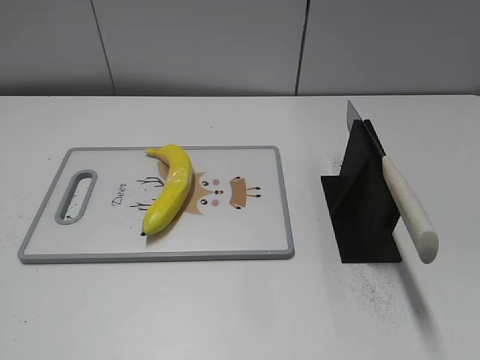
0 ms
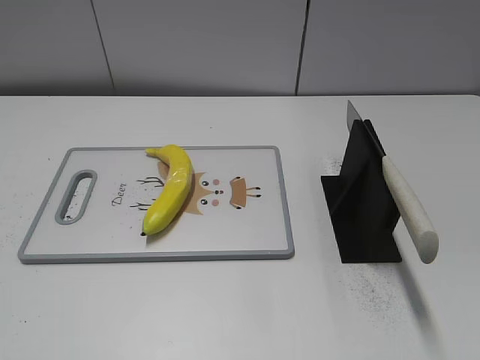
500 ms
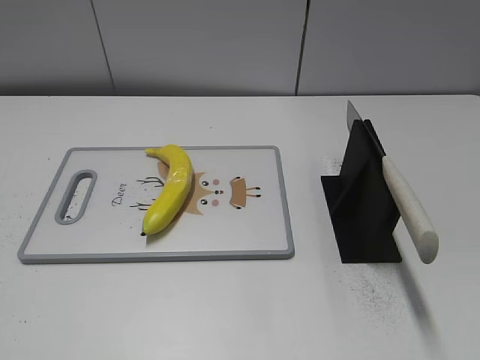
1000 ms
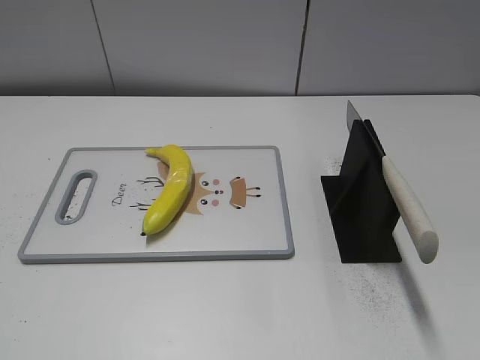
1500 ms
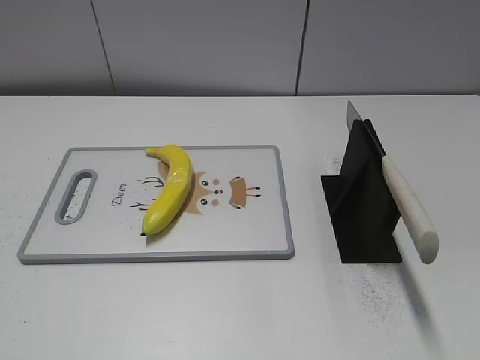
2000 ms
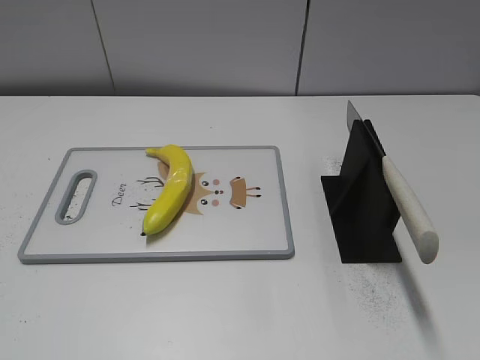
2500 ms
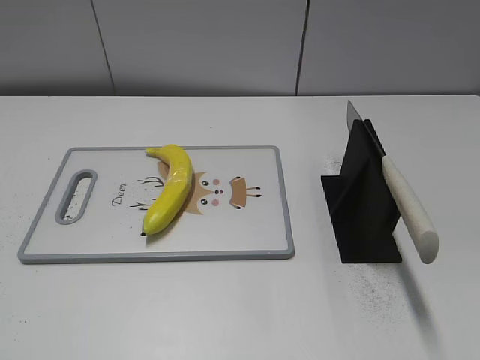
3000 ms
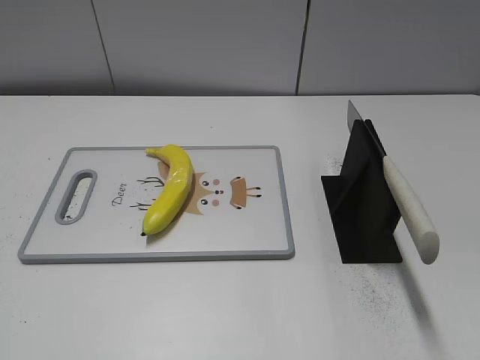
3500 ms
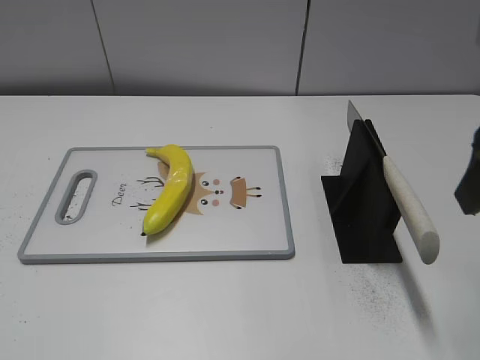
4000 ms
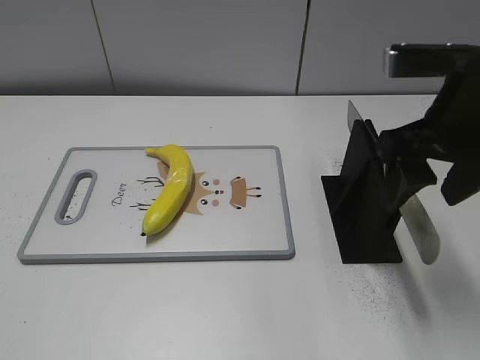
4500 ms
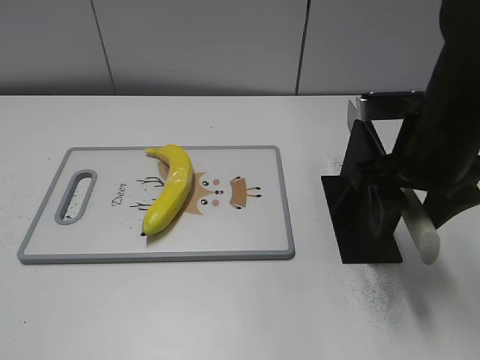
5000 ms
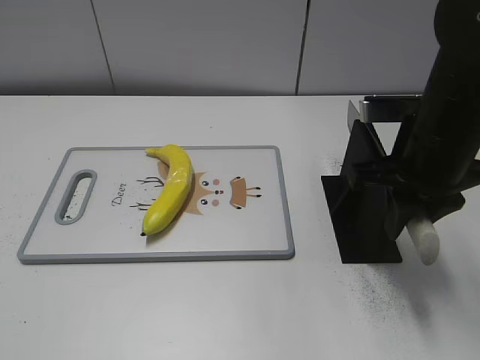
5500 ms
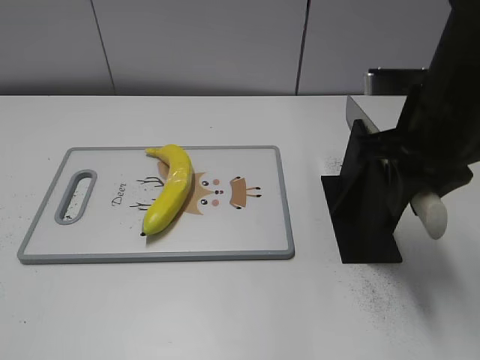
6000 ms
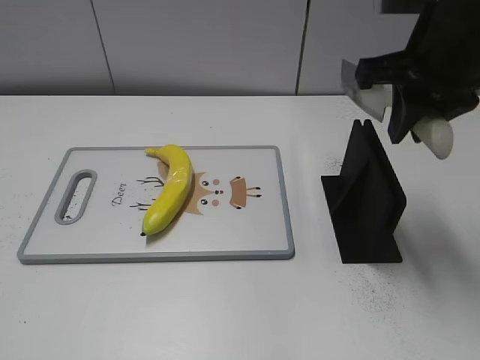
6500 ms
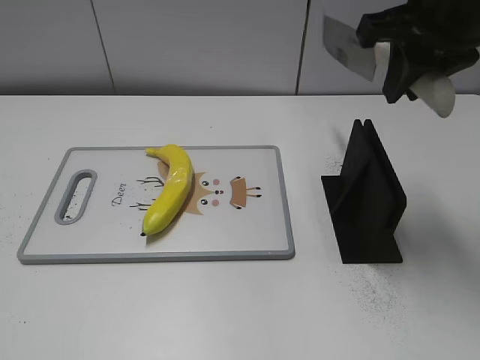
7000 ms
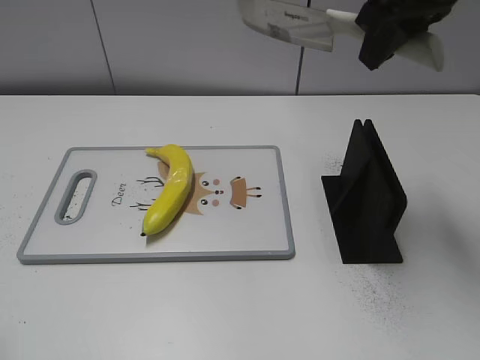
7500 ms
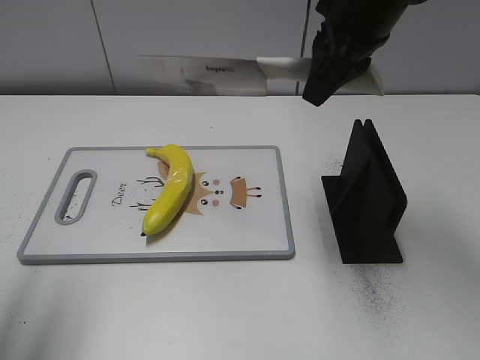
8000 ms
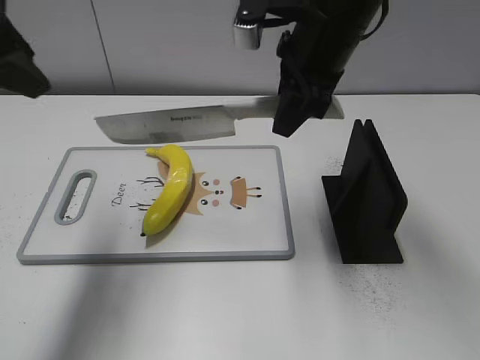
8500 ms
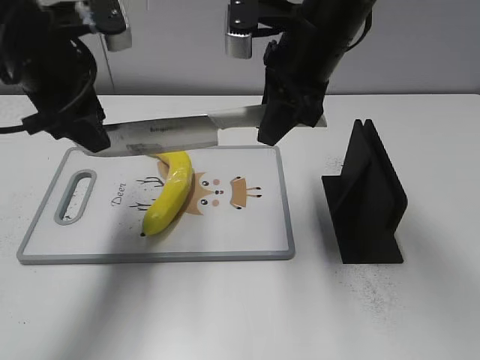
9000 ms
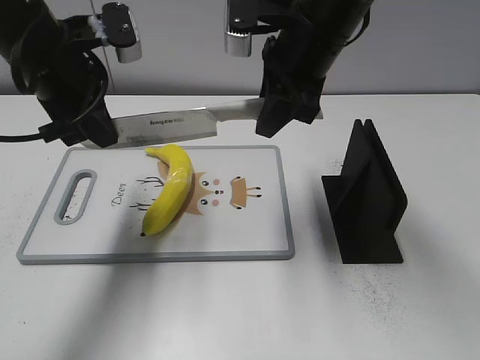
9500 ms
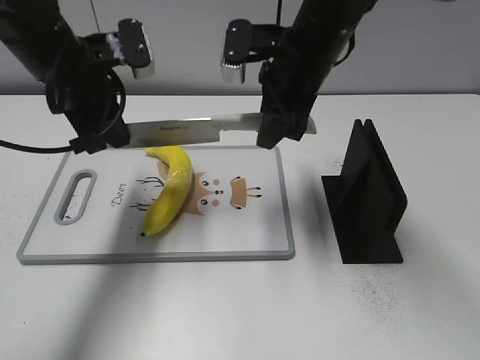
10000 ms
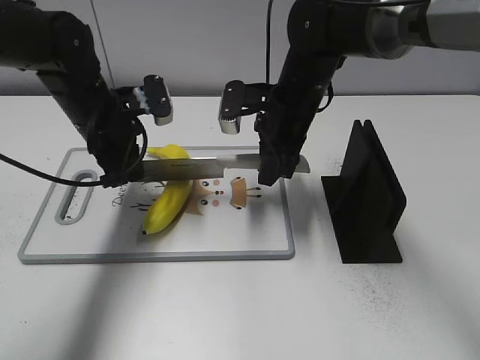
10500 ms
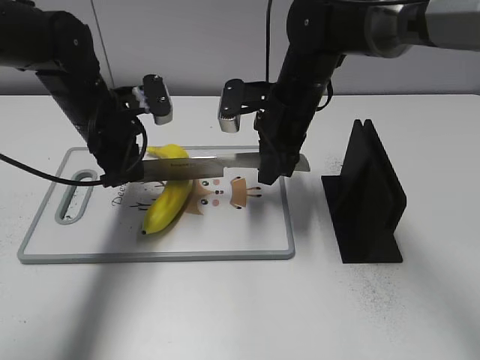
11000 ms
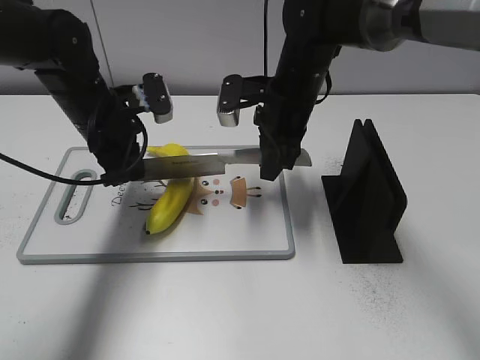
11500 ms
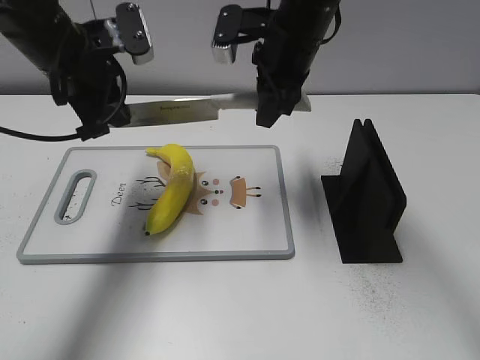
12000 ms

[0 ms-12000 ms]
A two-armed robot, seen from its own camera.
Task of the whole recording: cut plastic banana.
Step, 0 ms to 6500 ms: Grab the knife handle with your right hand.
Step, 7000 ms to 11500 ms: Lift the knife with your right hand.
2000 ms to 4000 ms: The right gripper shifts about 20 cm forward and to the left.
4000 ms to 6000 ms: The right gripper is displaced forward and downward by some 10 cm, and closes.
6000 ms to 8000 ms: The right gripper goes approximately 10 cm upward, forward and to the left. The left gripper heads forward and upward, covering about 20 cm.
8000 ms to 10000 ms: The left gripper is displaced forward, to the right and downward by roughly 25 cm, and closes up; the right gripper moves downward, roughly 10 cm.
10000 ms to 12000 ms: The right gripper moves about 10 cm downward and comes back, while the left gripper goes downward and returns, roughly 10 cm each way.

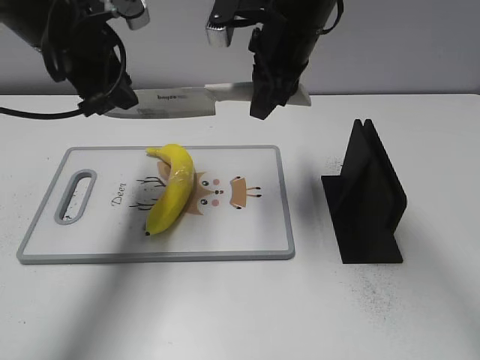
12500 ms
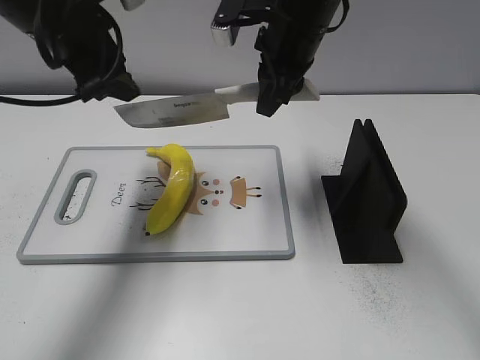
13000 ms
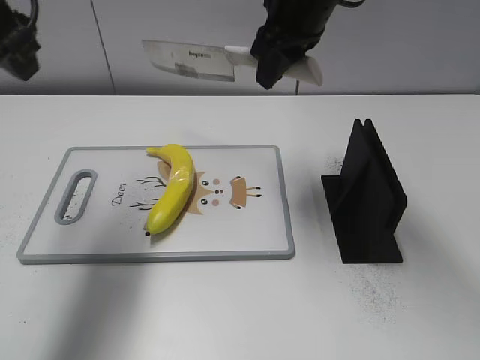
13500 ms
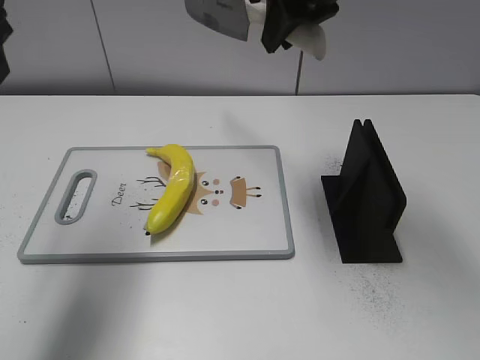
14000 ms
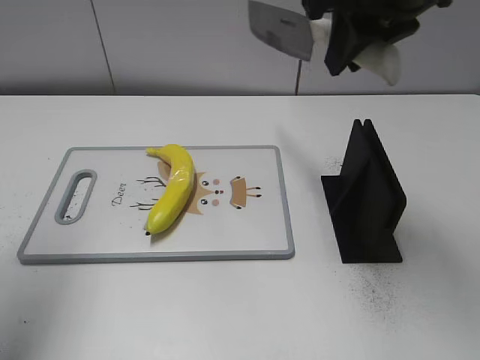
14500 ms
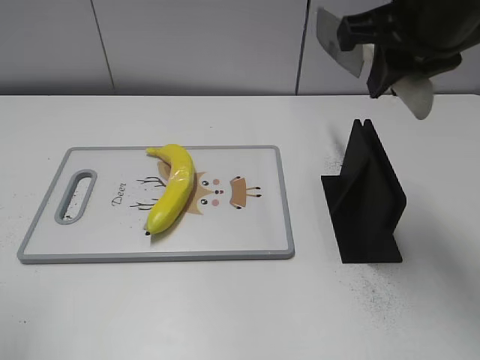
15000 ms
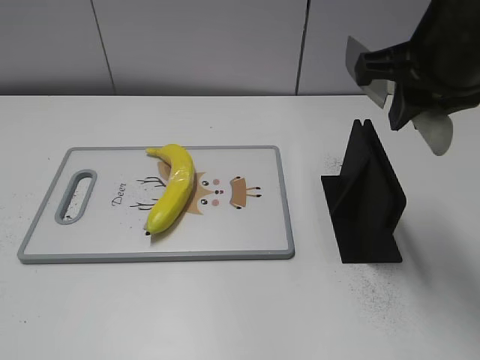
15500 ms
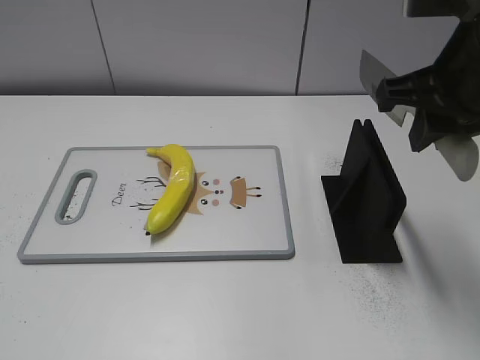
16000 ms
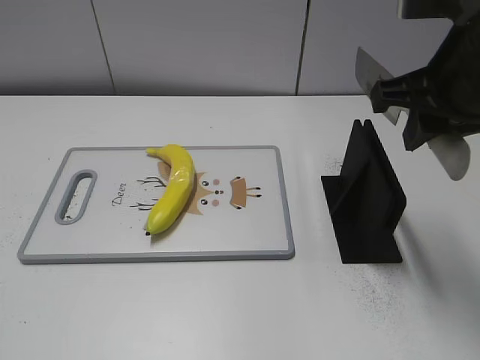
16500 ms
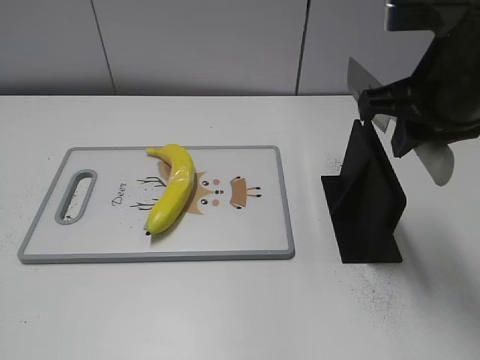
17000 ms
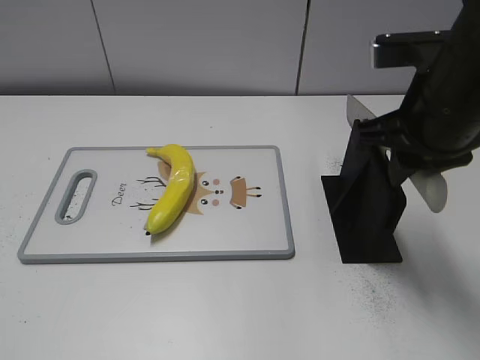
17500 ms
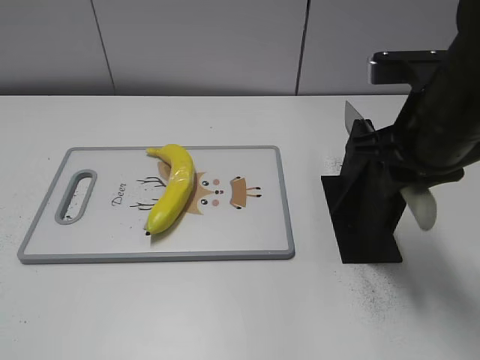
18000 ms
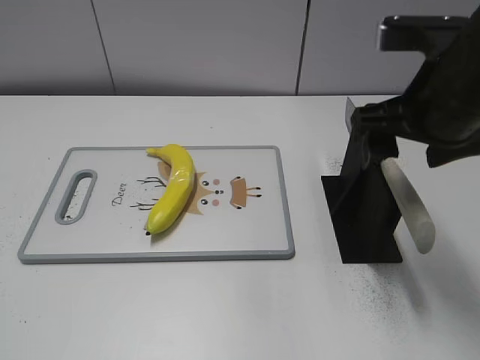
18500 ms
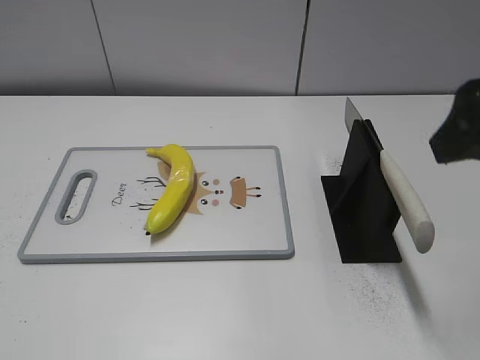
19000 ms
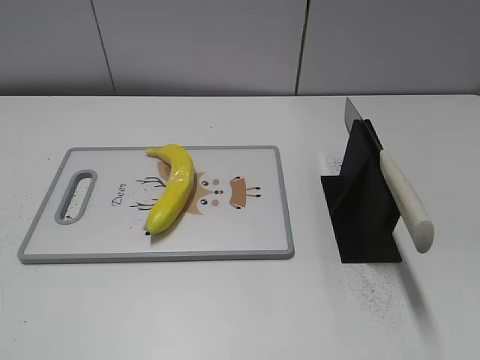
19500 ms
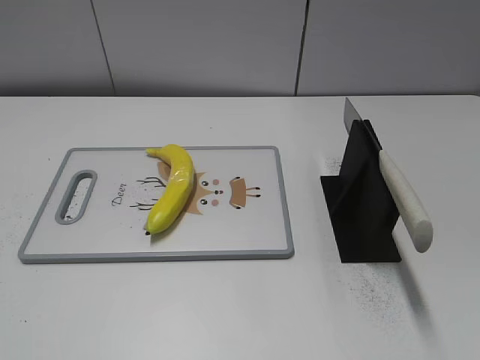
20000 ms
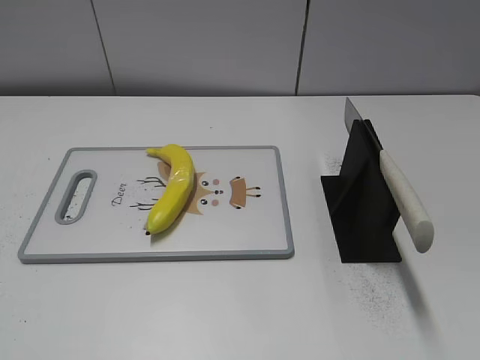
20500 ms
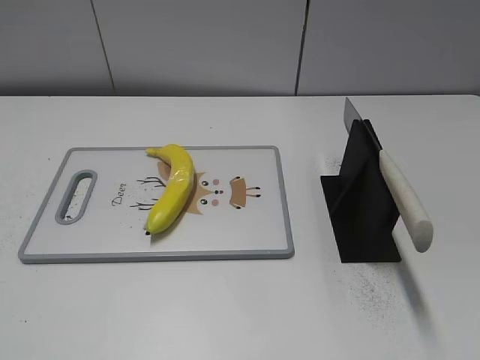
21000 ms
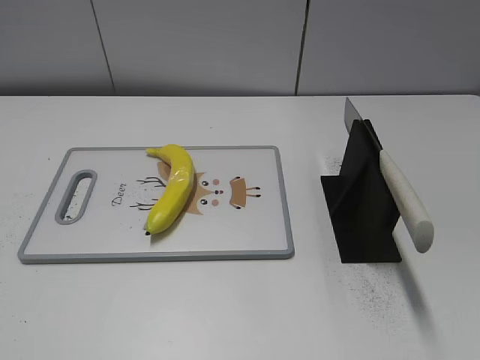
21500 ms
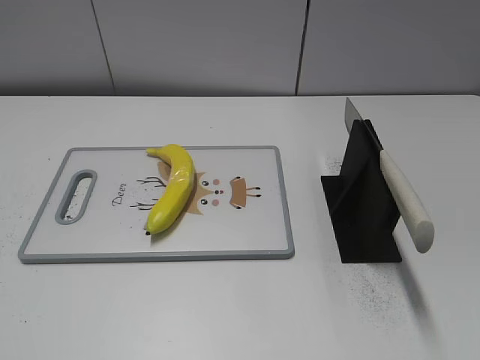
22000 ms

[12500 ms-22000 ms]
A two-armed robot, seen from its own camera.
Task of the whole recording: cut plastic banana.
Step, 13500 ms to 15500 ms: Lift the knife with your right hand.
Step, 16000 ms to 22000 ms: Place the knife on the storage rack with your right hand.
12500 ms to 14500 ms: The left gripper heads backward, to the left and upward, covering some 20 cm, and opens, while the right gripper travels upward, backward and to the right by approximately 15 cm.
14500 ms to 16500 ms: The right gripper is displaced backward, downward and to the right by about 10 cm. The left gripper is displaced backward and downward by about 25 cm.
16500 ms to 18000 ms: The right gripper travels downward by some 5 cm.
18000 ms to 20000 ms: The right gripper travels backward and to the right by approximately 25 cm, and opens up.

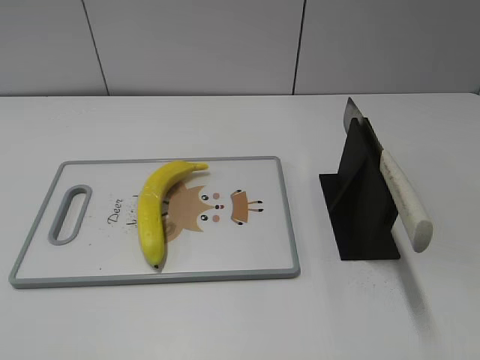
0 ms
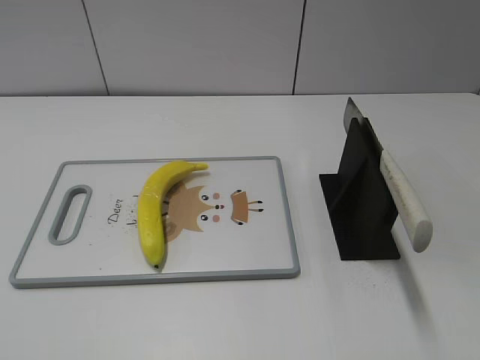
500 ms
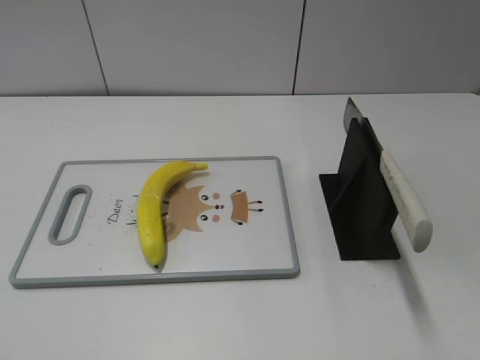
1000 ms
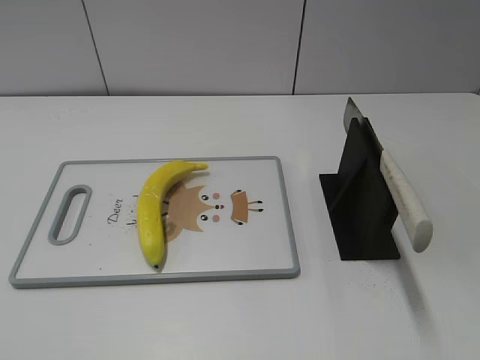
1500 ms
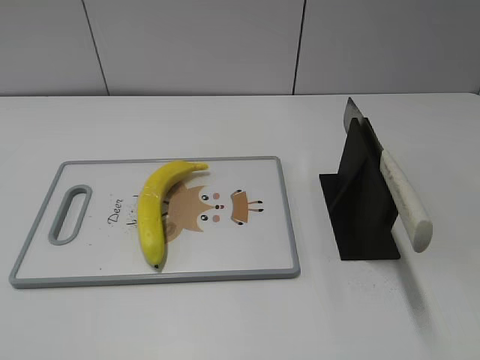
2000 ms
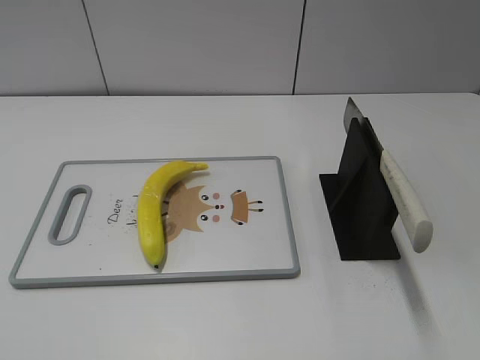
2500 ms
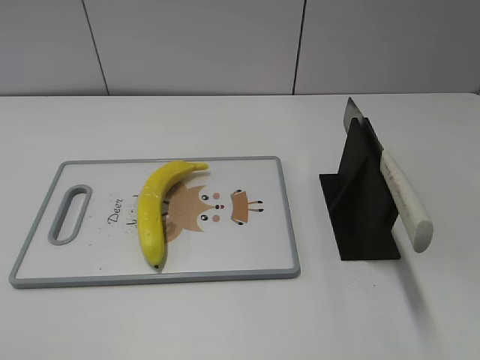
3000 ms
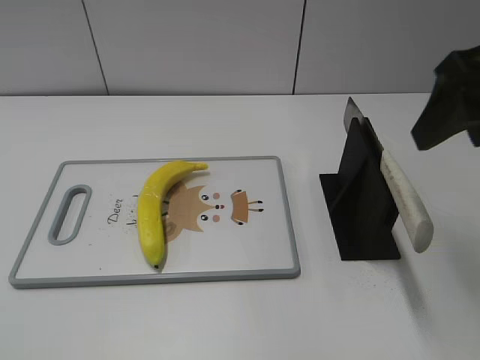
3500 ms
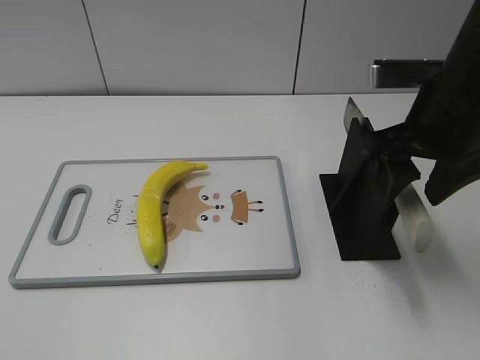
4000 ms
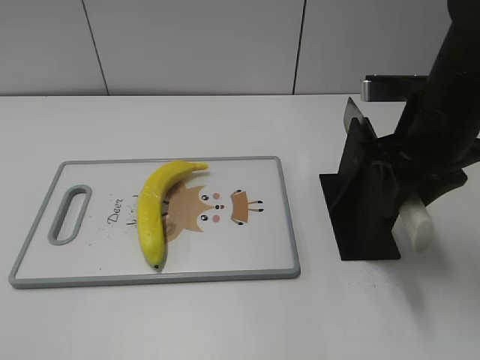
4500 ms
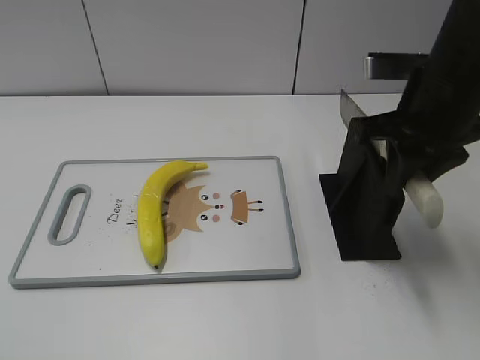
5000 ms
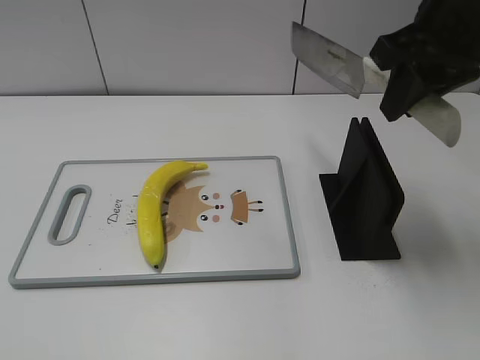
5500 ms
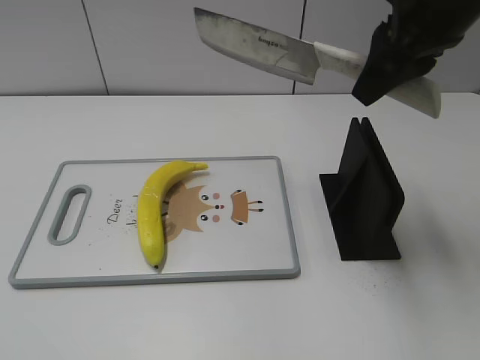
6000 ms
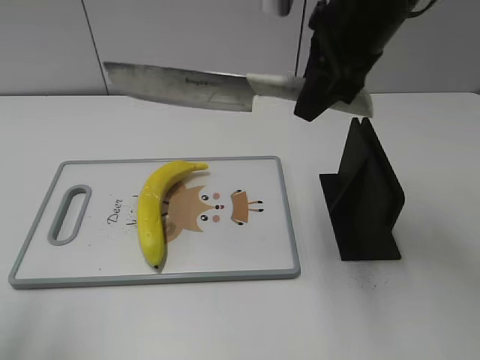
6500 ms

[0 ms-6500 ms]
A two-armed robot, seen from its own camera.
Task of the whole recording: cut plastic banana.
Step, 0 ms to 5500 ms: Grab the knife handle with your right hand.
2000 ms to 4500 ms: The right gripper goes approximately 30 cm forward, and closes its fingers.
4500 ms to 6500 ms: The left gripper shifts about 15 cm forward and upward. The right gripper shifts roughly 10 cm upward and to the left.
